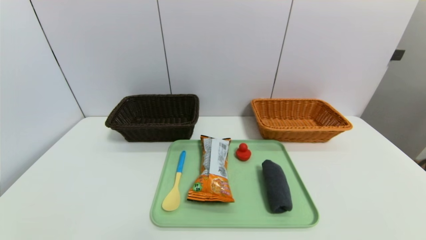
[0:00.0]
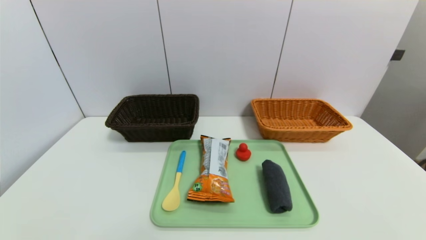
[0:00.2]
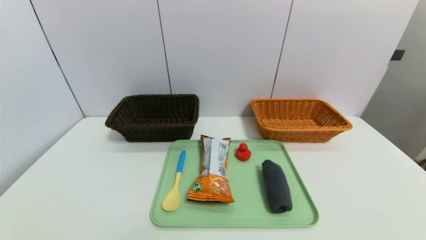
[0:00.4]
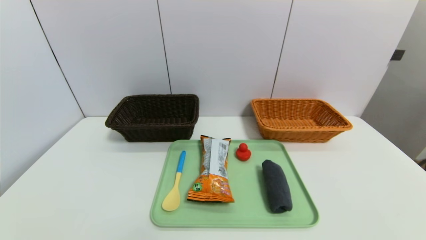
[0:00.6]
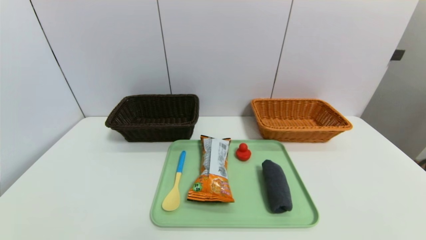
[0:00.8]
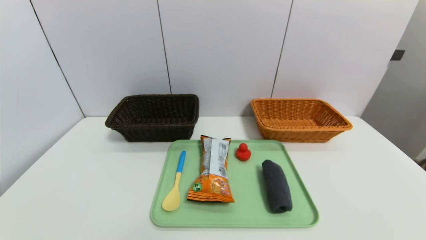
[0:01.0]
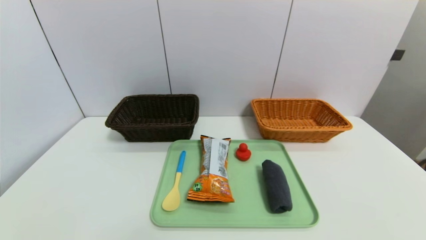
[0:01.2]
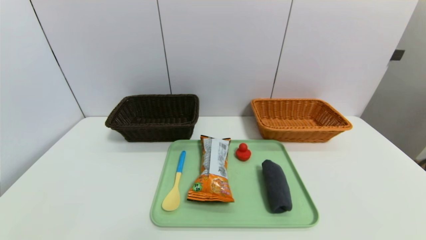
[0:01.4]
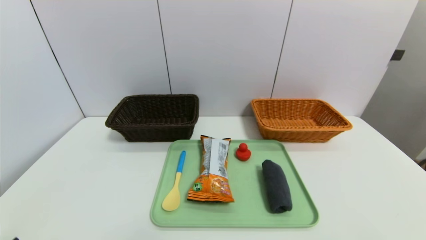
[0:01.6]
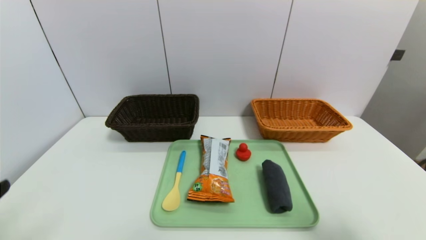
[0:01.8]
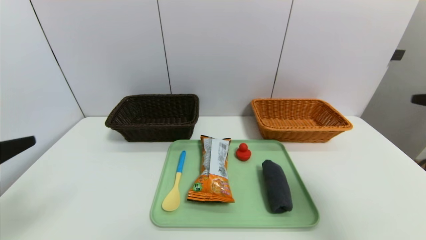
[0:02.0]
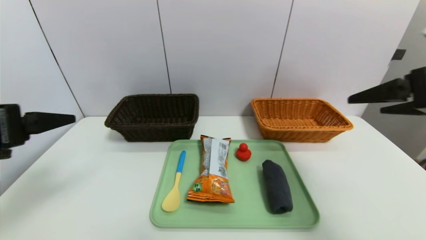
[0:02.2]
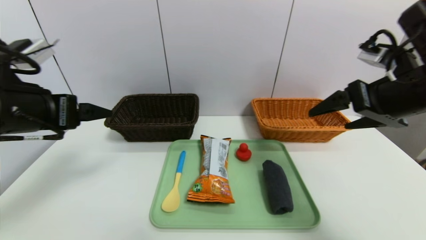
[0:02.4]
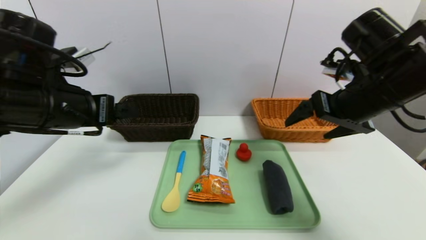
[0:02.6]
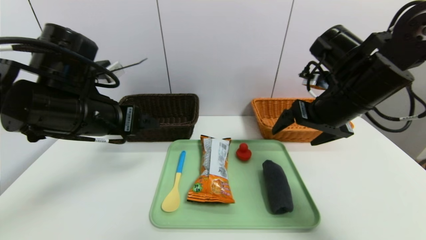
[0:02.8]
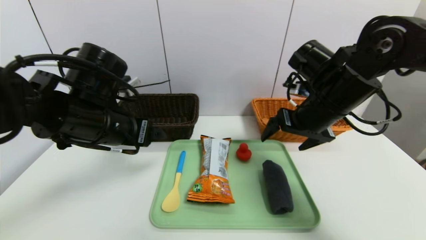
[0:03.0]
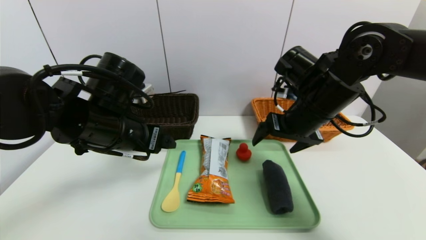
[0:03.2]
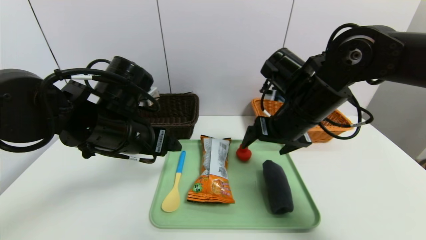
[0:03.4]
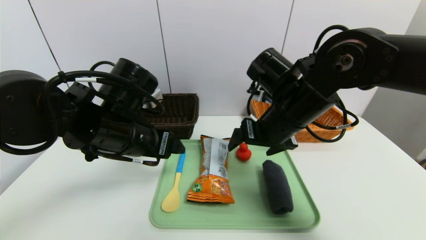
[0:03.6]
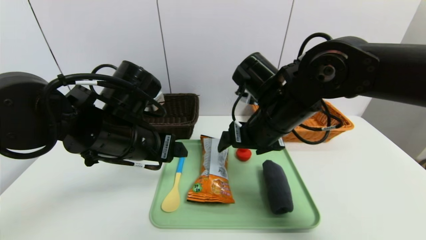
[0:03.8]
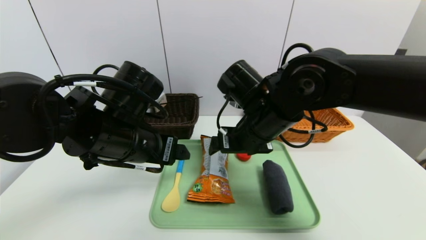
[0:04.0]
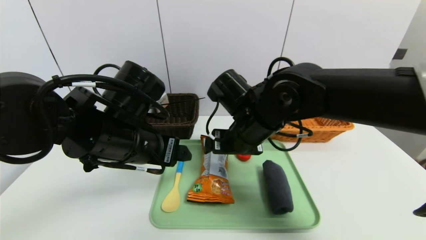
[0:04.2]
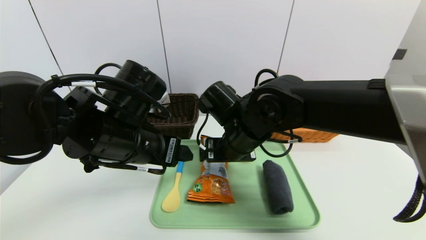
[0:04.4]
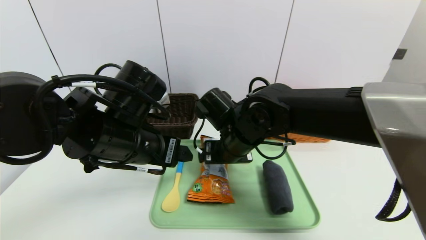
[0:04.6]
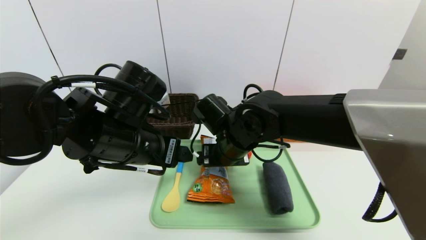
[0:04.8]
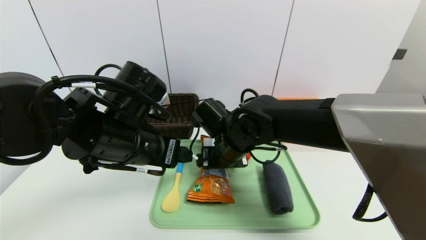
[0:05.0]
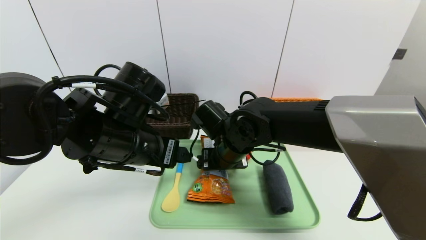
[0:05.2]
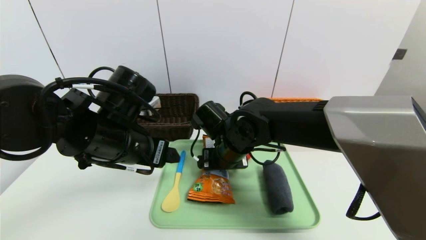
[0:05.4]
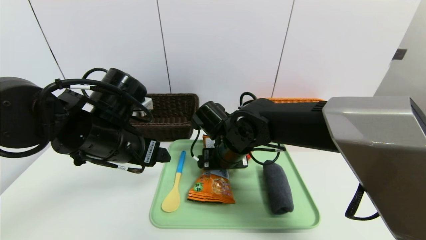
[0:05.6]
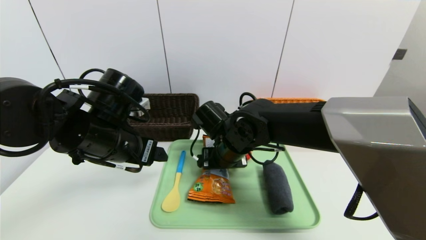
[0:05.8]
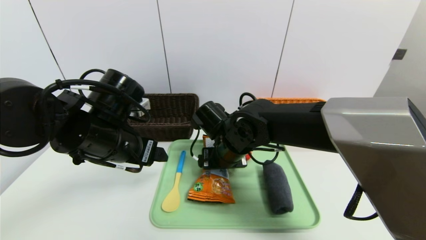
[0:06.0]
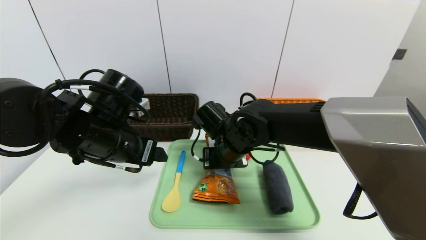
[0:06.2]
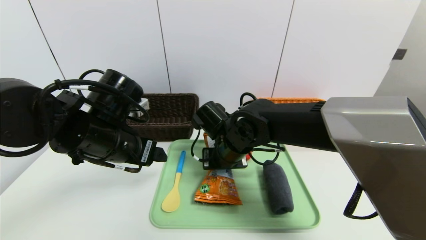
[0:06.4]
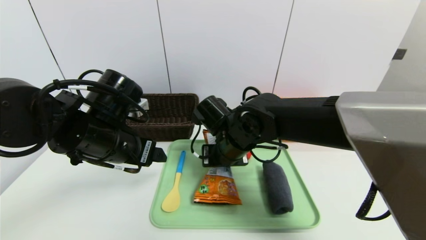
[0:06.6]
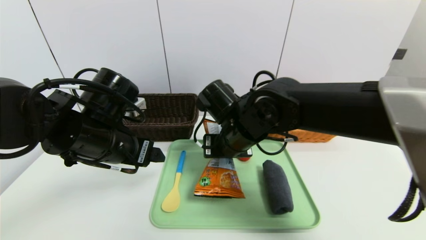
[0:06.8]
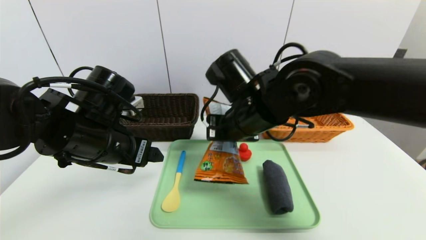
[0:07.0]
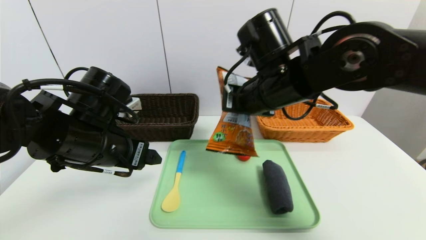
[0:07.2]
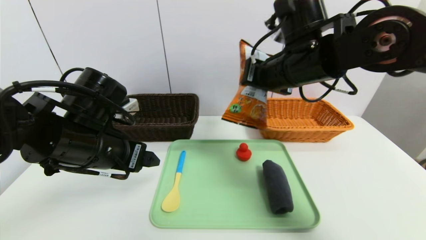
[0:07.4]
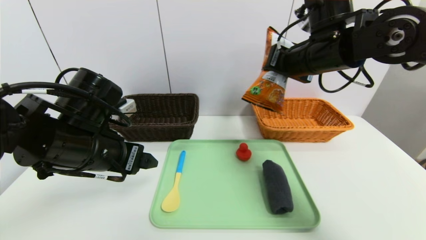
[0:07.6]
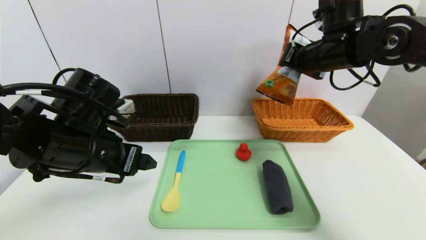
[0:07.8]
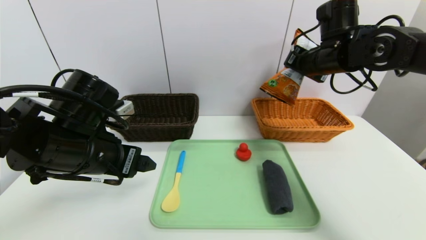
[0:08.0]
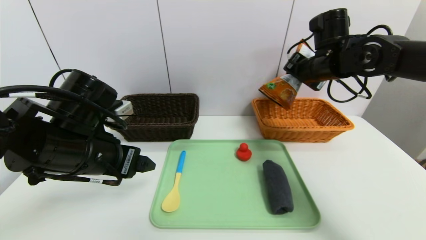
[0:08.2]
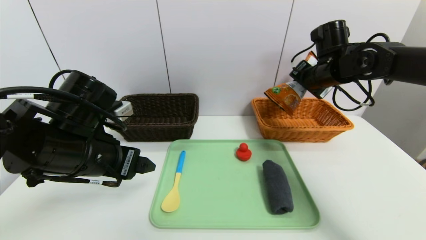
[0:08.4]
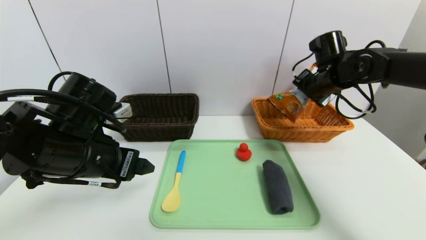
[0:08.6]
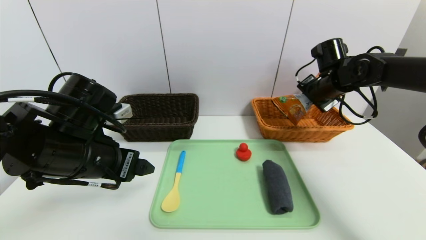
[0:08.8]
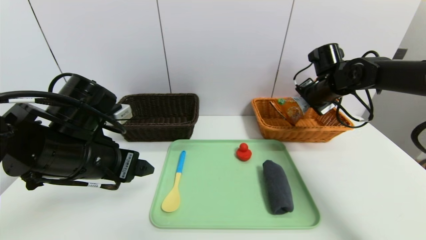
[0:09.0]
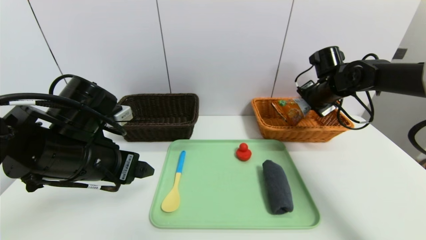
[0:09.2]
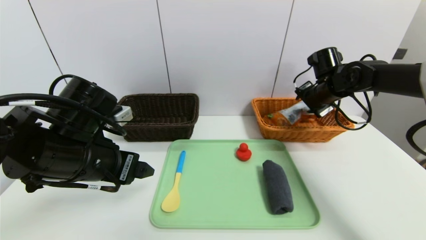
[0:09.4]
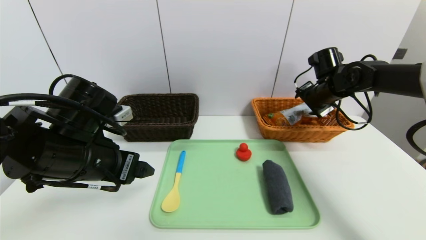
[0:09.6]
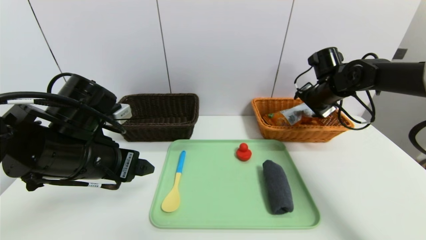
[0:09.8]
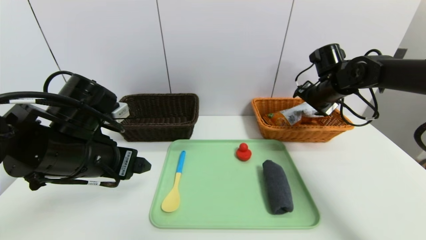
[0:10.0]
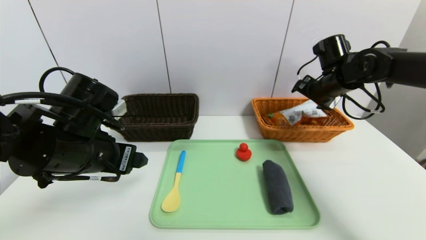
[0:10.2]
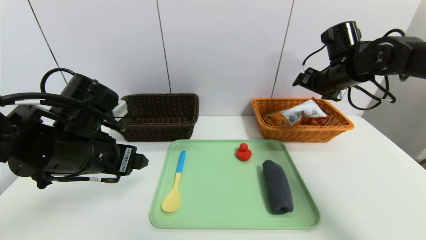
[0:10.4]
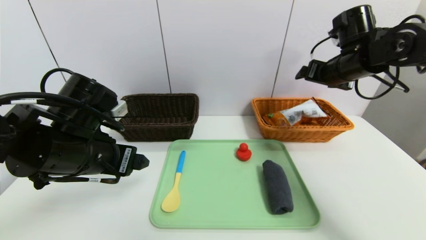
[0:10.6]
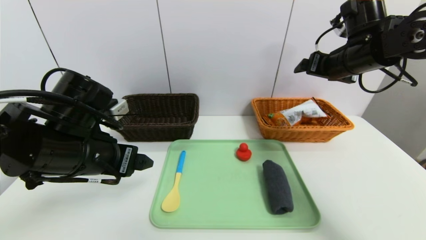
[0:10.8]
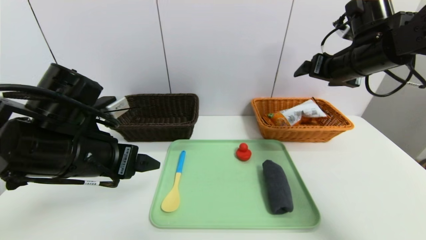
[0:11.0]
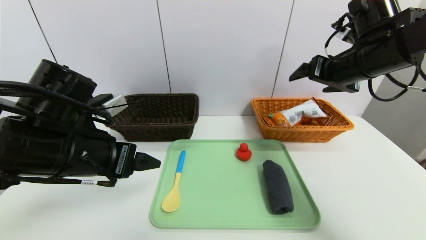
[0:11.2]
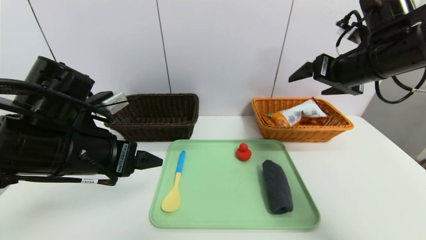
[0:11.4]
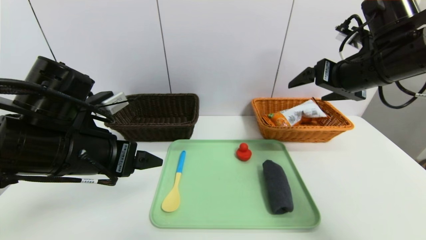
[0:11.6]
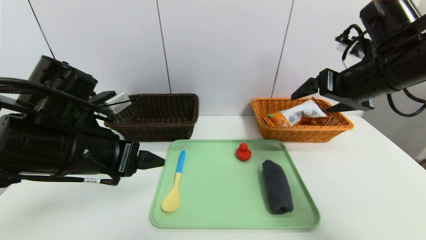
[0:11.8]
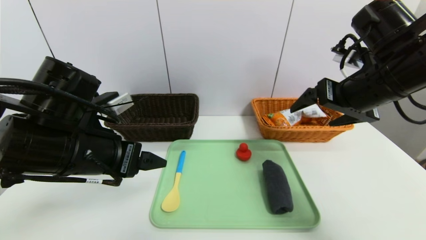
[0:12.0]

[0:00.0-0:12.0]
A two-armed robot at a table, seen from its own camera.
Task of the whole recording: place the food in the right basket with the right gripper, and place the non food items in the left basket with the left gripper.
Step, 0:00.0 to 0:09.8: Grasp the cookie and put it in the right basket.
0:01.6 to 0:03.0: The left gripper heads forward and to the right, covering roughly 30 cm; the right gripper heads forward and to the left, covering roughly 35 cm.
0:03.0 to 0:04.4: The right gripper shifts about 15 cm to the left and downward. Meanwhile the left gripper ends up roughly 5 cm from where it was.
0:04.4 to 0:06.0: The left gripper changes place by roughly 5 cm; the right gripper shifts by roughly 5 cm.
0:06.0 to 0:07.6: The right gripper goes roughly 25 cm upward and to the right, and closes.
0:07.6 to 0:09.0: The right gripper moves to the right, downward and forward, roughly 15 cm.
0:09.0 to 0:10.4: The right gripper shifts by some 5 cm, and opens.
0:10.4 to 0:12.0: The right gripper is displaced backward by about 15 cm.

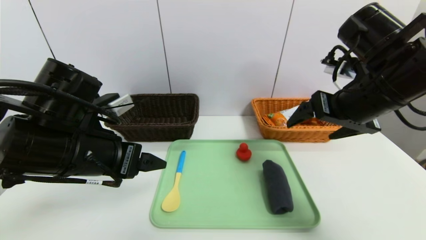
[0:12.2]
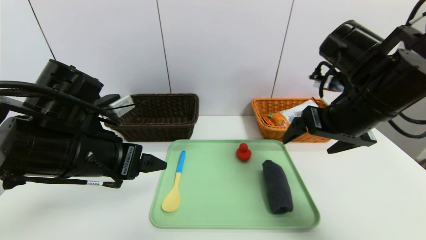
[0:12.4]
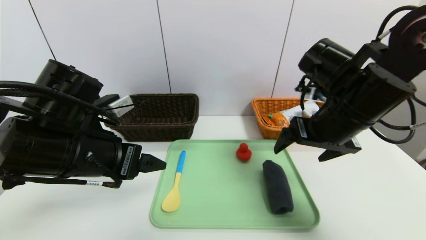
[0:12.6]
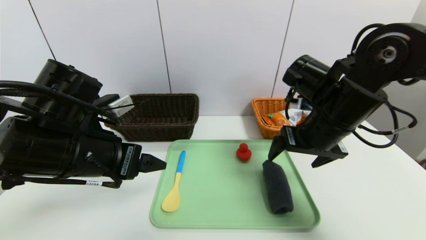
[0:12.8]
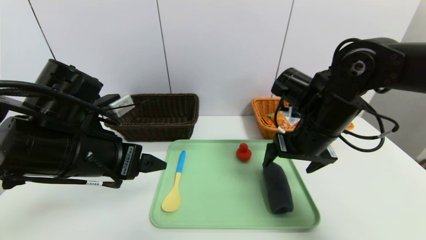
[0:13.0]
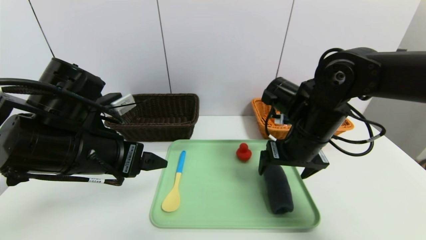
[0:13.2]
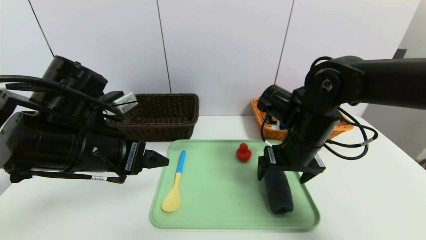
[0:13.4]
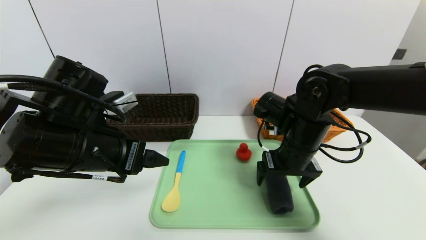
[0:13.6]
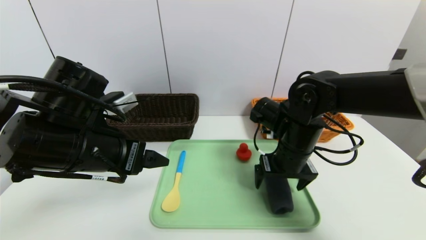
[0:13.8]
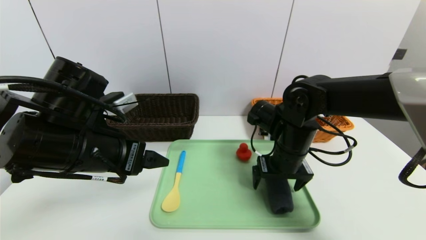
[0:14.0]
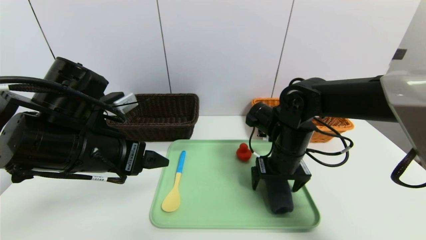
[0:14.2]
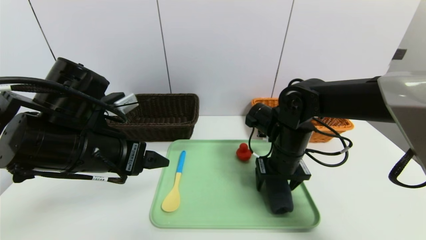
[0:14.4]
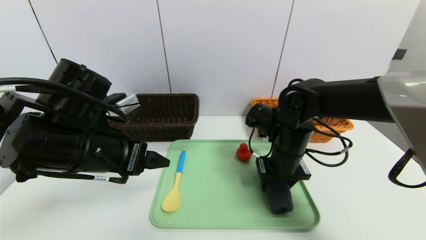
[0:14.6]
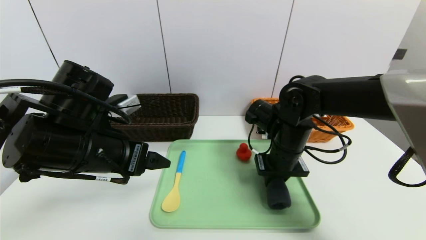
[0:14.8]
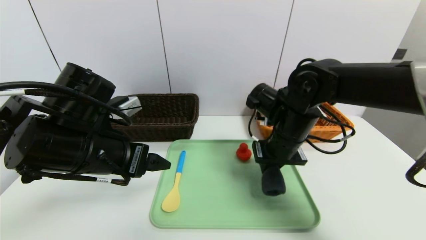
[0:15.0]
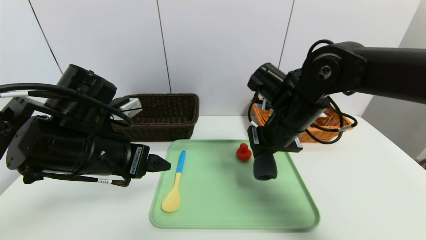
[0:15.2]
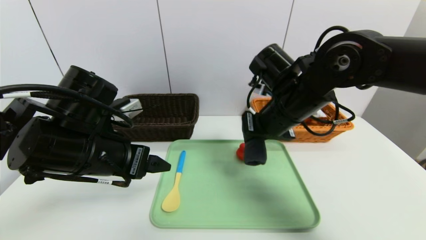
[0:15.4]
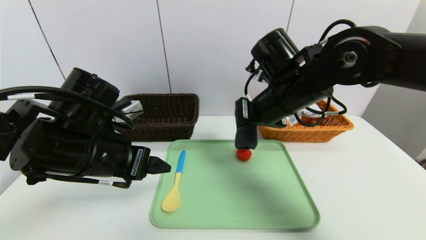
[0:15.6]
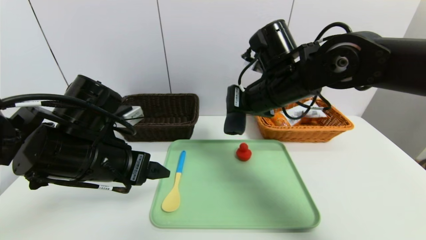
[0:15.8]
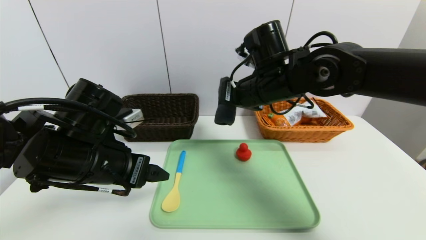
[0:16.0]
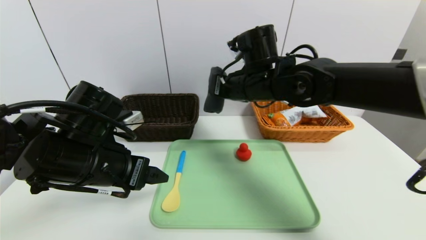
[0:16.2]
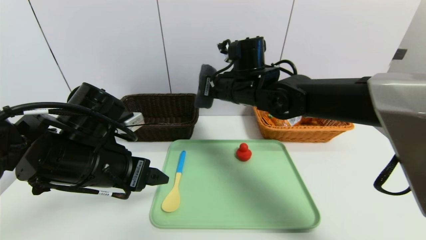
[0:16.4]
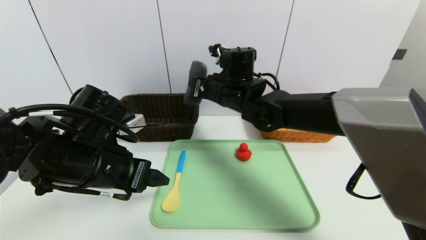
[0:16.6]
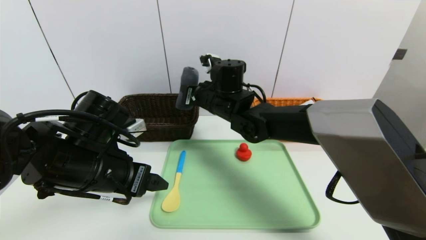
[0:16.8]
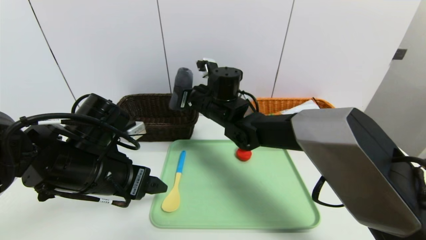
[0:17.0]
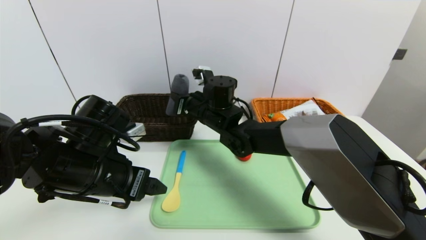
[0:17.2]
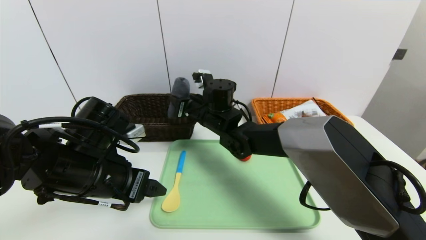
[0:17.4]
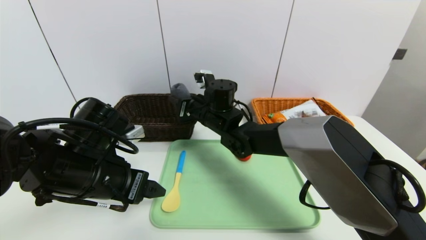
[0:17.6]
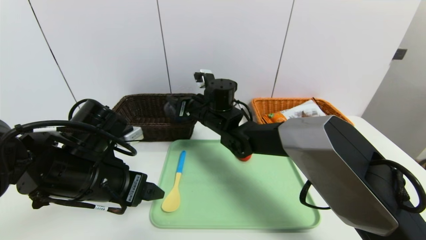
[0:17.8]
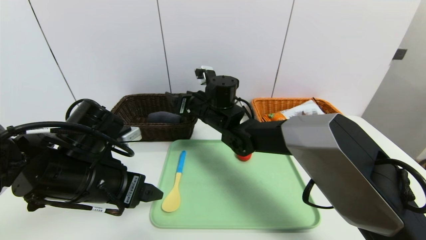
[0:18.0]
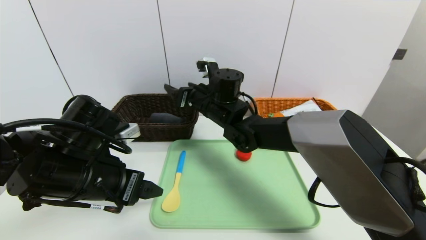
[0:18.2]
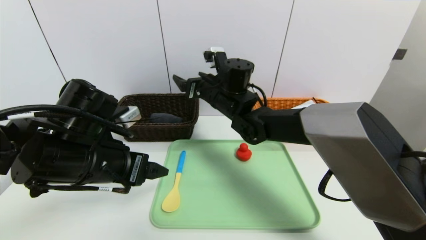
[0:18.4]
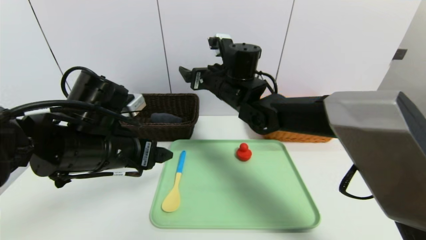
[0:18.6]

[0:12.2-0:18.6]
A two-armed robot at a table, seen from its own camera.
Task of the whole recording: place the food in the right basket with the right gripper, and place the non food items in the left basket with the left gripper.
0:12.2 to 0:13.8: The right gripper goes roughly 15 cm downward and to the left.
0:13.8 to 0:15.4: The right gripper is displaced upward by some 10 cm, and closes.
0:15.4 to 0:17.0: The right gripper heads to the left and forward, covering some 15 cm.
0:17.0 to 0:18.6: The right gripper shifts by about 5 cm, and opens its fingers.
